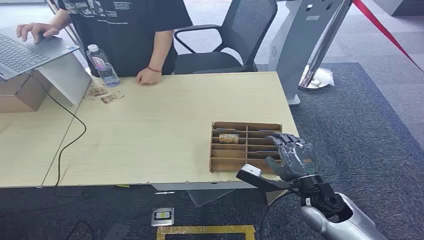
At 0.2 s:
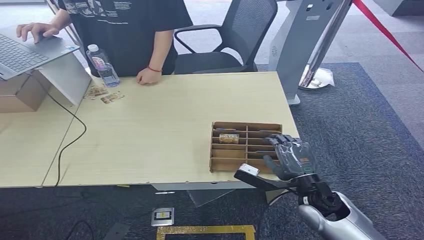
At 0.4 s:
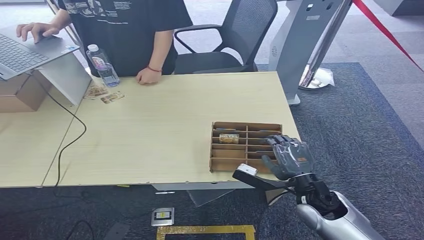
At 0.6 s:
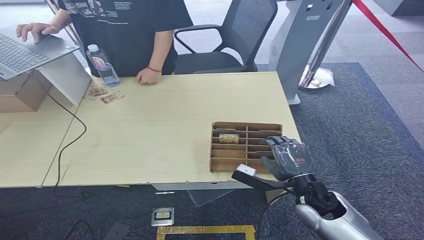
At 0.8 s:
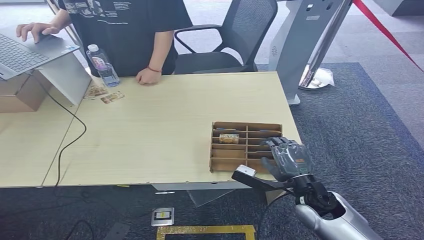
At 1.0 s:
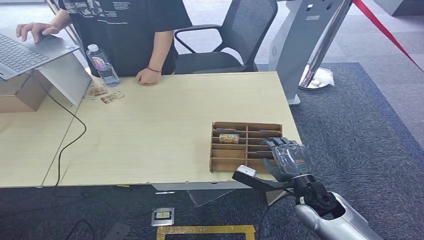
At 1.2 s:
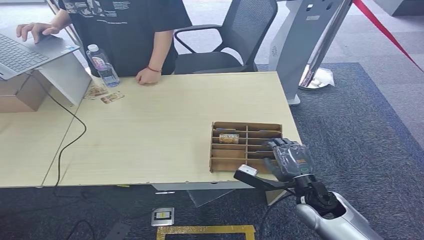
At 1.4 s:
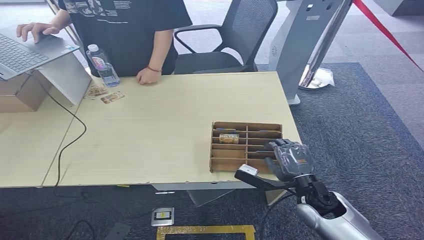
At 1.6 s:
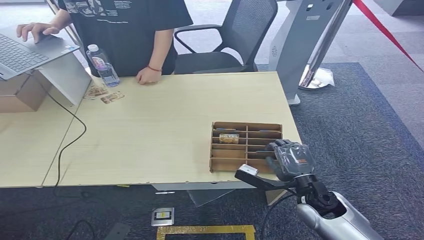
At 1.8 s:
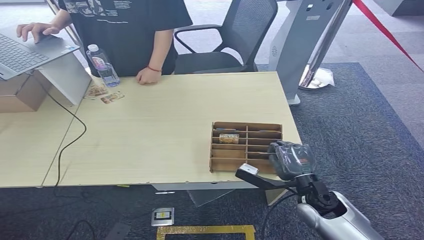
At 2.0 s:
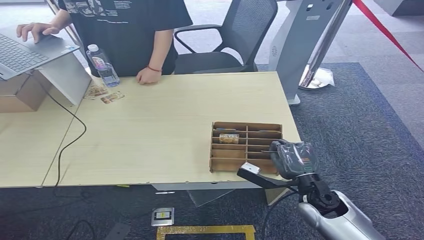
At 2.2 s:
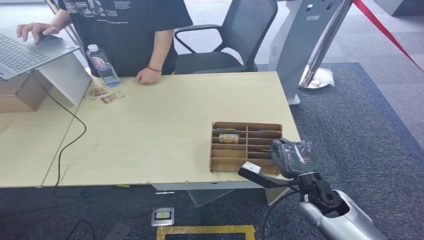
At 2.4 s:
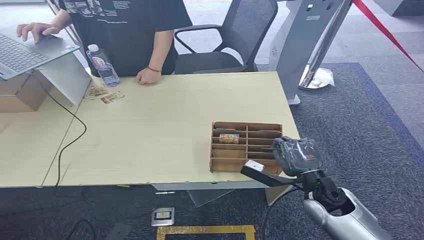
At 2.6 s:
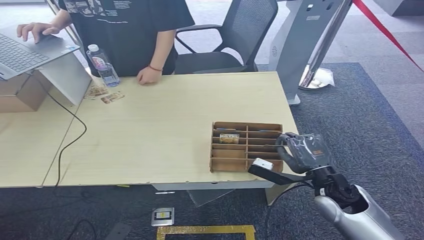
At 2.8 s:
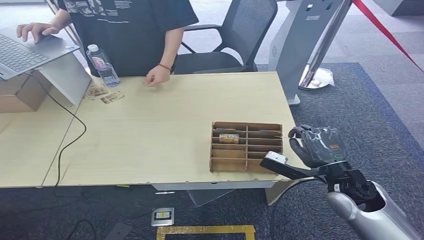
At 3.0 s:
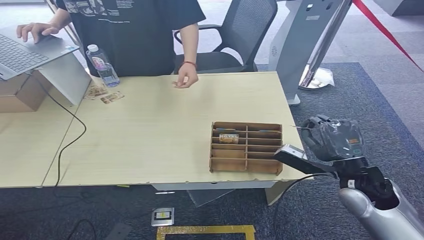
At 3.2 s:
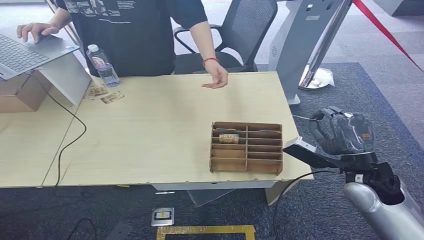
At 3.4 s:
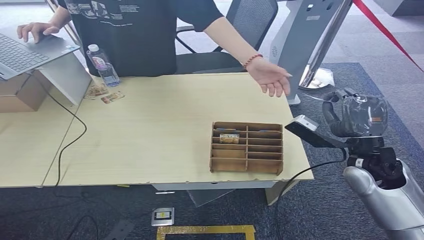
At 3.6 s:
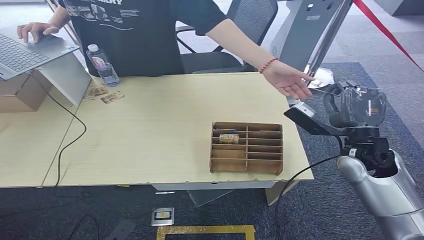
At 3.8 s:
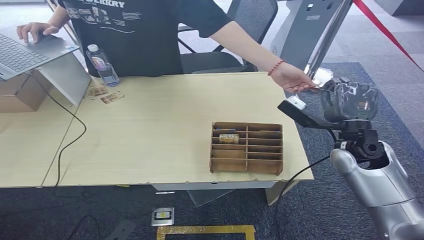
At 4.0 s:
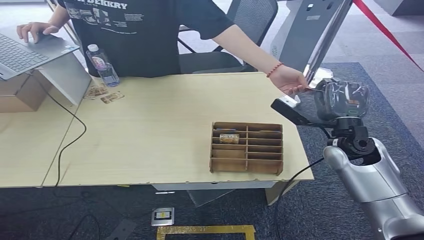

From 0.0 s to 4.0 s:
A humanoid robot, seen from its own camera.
Step, from 0.0 s to 2.8 s: Pick up the key card from the card box.
Step, from 3.0 s to 4.0 s: Hand the key card to the target.
From 1.4 s to 2.6 s: The hands stay close to where they were, moving slightly.
From 2.6 s to 4.0 s: The right hand shifts approximately 15 cm upward and forward.
